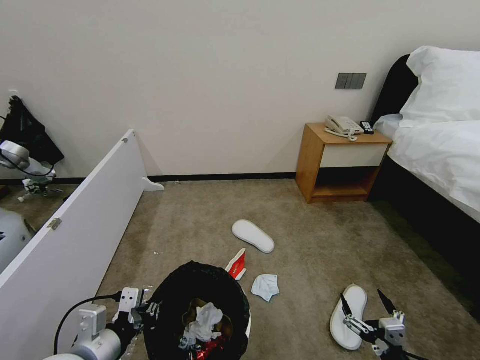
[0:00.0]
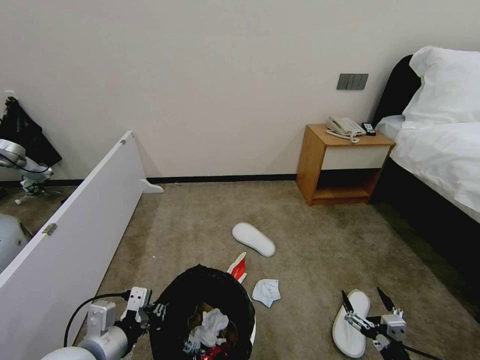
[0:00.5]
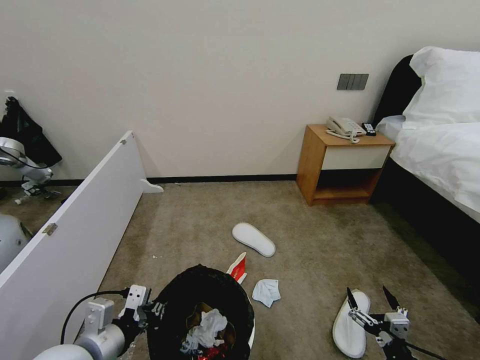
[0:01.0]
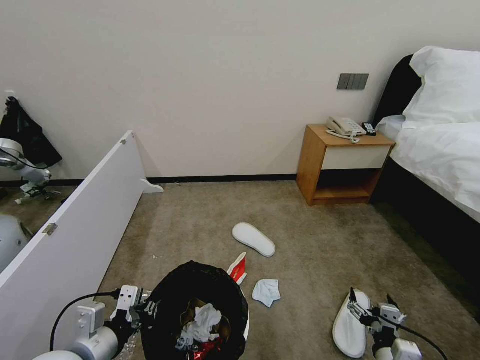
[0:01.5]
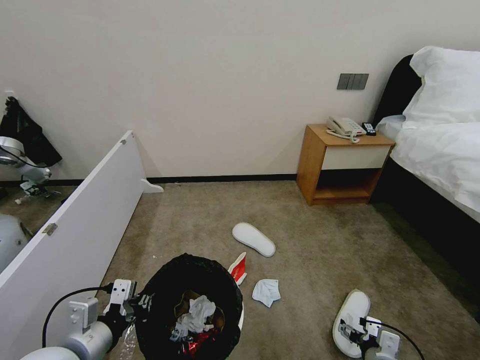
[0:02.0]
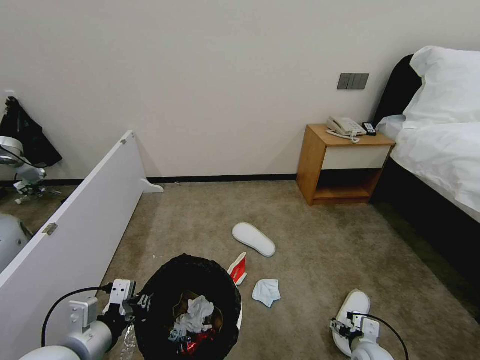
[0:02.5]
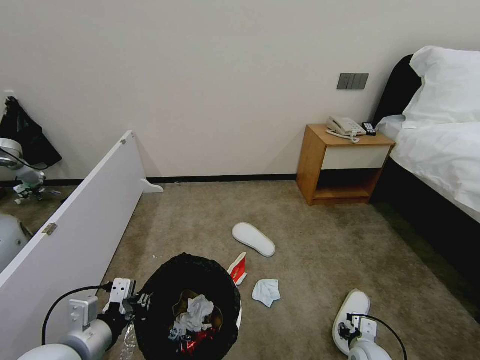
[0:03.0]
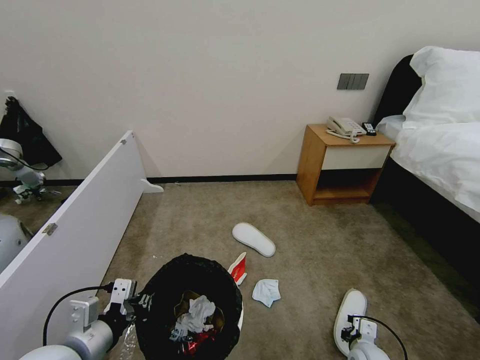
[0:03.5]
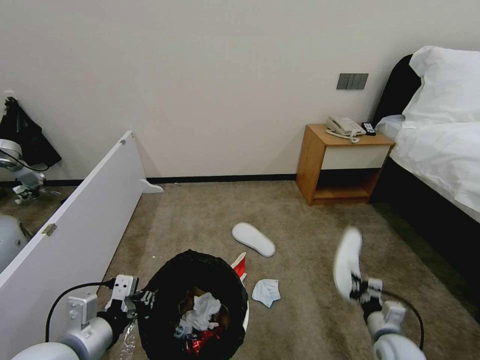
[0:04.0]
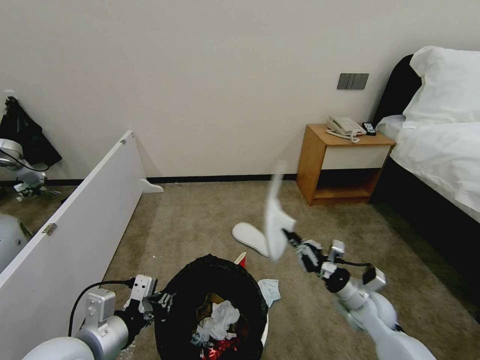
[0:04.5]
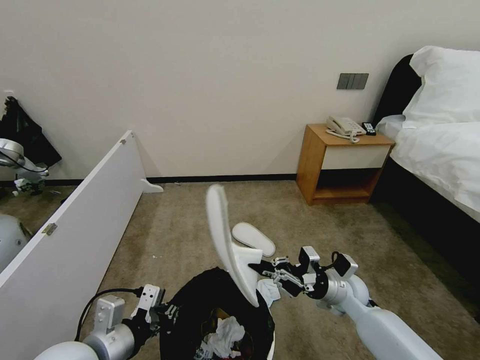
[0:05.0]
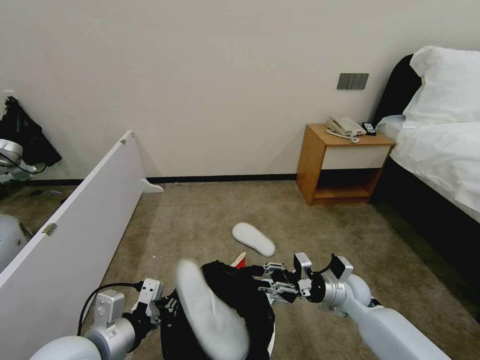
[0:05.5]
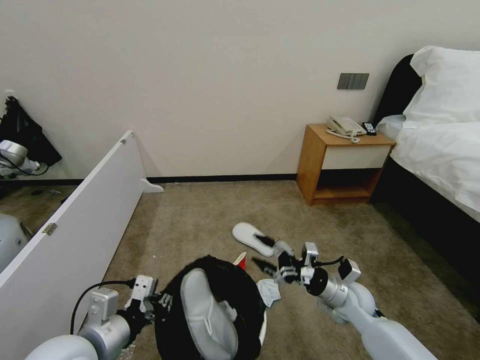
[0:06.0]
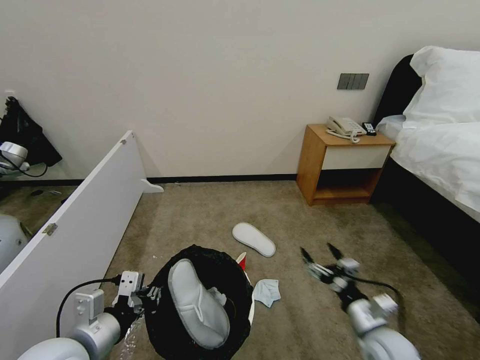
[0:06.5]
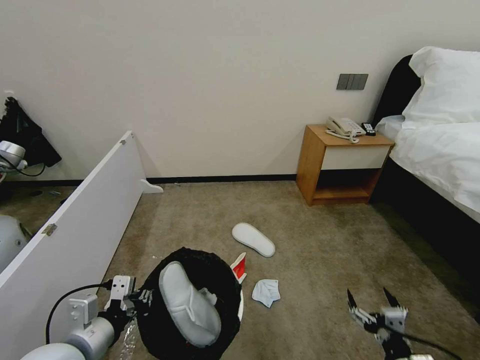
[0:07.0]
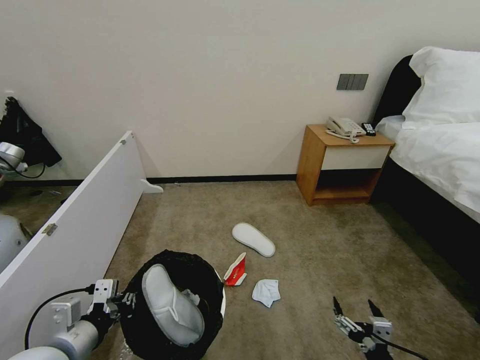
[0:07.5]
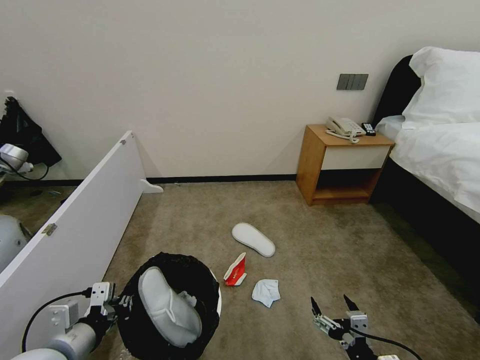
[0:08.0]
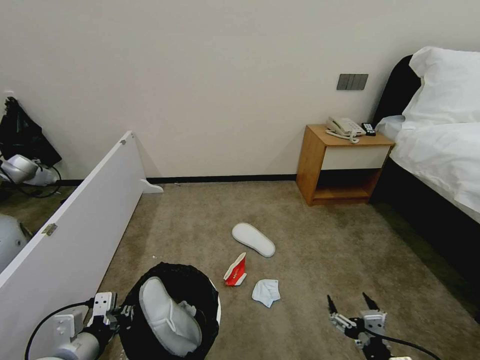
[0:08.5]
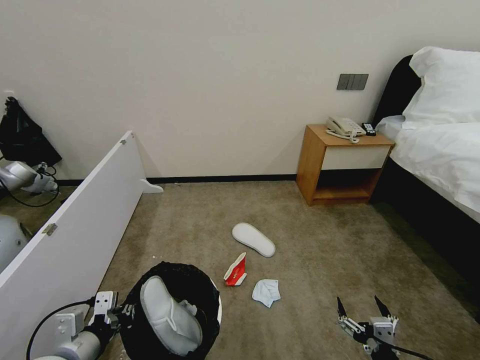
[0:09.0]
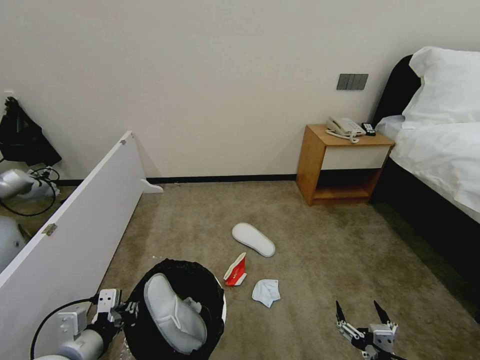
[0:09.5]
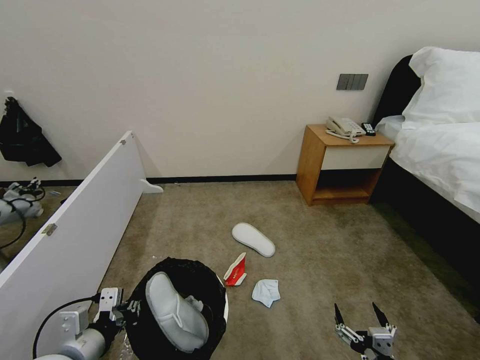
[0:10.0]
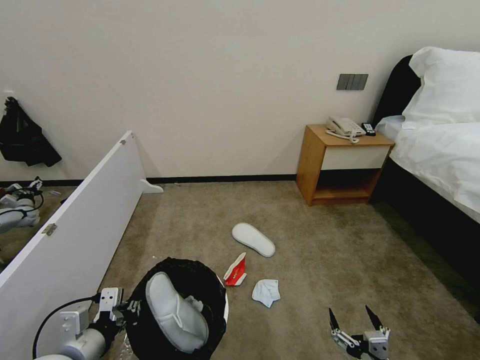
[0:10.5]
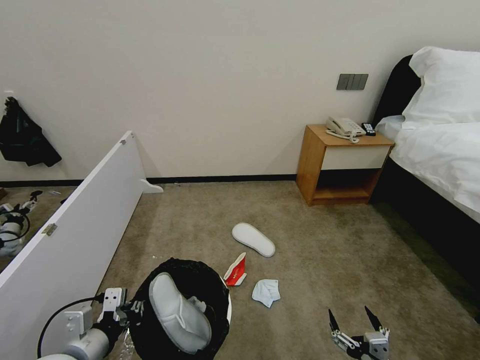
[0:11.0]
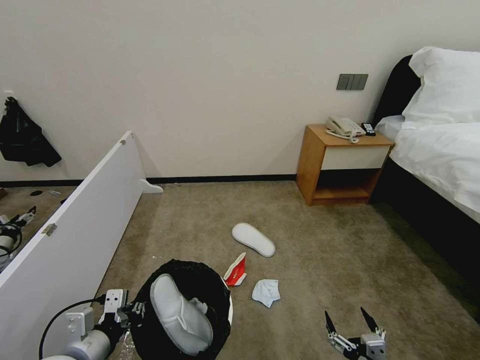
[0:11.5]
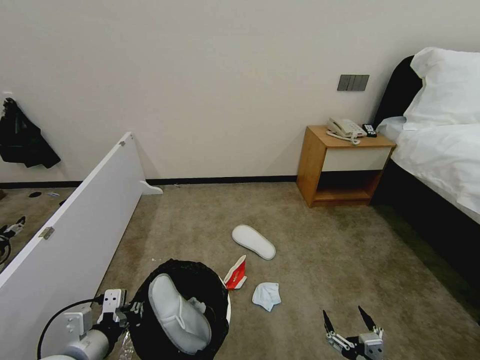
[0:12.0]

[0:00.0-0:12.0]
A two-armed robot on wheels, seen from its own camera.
Task of the whole recording: Pick up the trash bin, then pick up the garbage from the floor and place it into the trash bin.
0:00.0 to 0:02.0: The right gripper moves forward and downward, some 10 cm.
0:02.0 to 0:04.0: The right gripper heads forward, covering roughly 5 cm, and closes its fingers.
0:04.0 to 0:06.0: The right gripper moves to the left, forward and upward, some 15 cm, and opens.
0:06.0 to 0:08.0: The left gripper moves to the left, roughly 5 cm. The right gripper moves backward, some 25 cm.
0:08.0 to 0:12.0: The grippers move only a little.

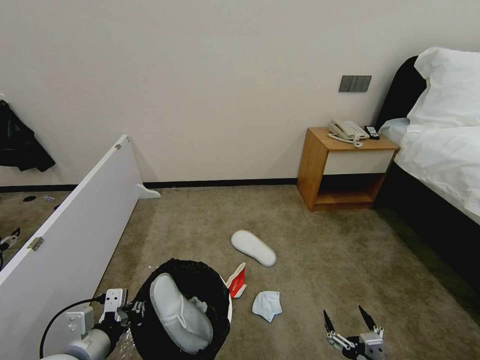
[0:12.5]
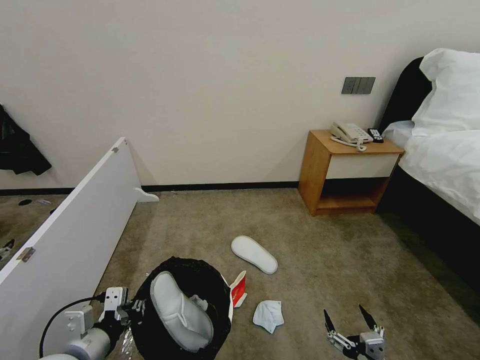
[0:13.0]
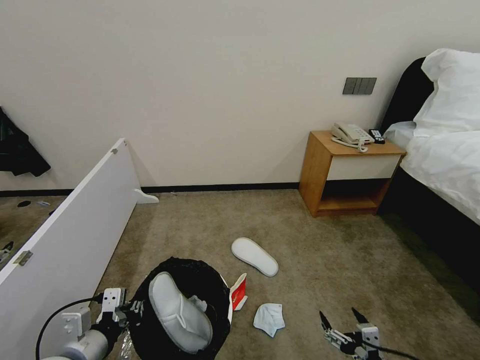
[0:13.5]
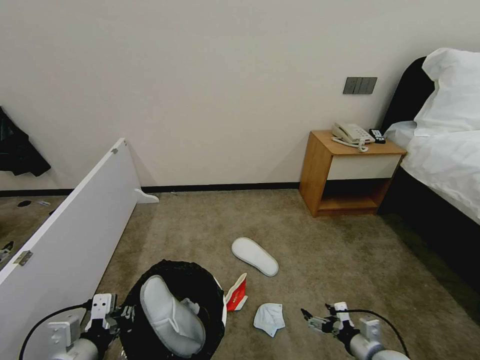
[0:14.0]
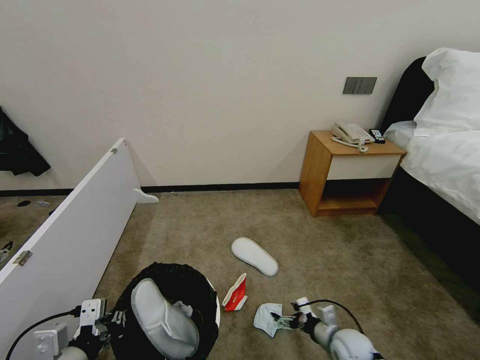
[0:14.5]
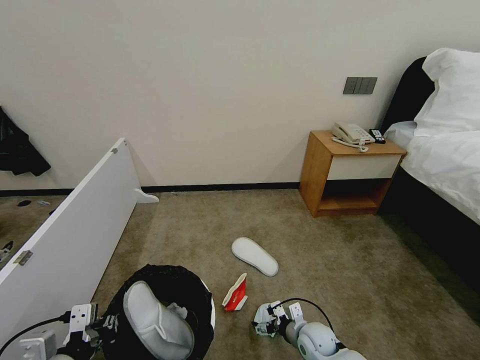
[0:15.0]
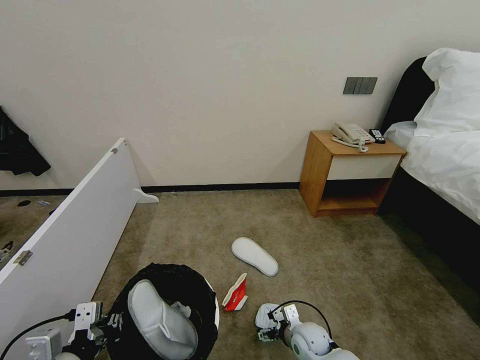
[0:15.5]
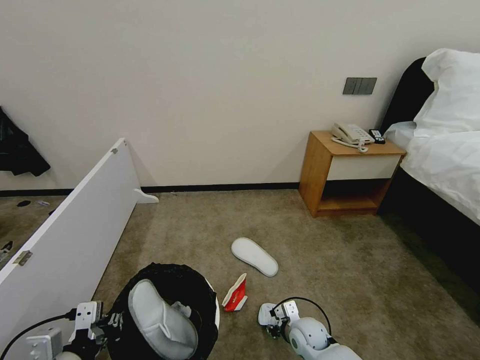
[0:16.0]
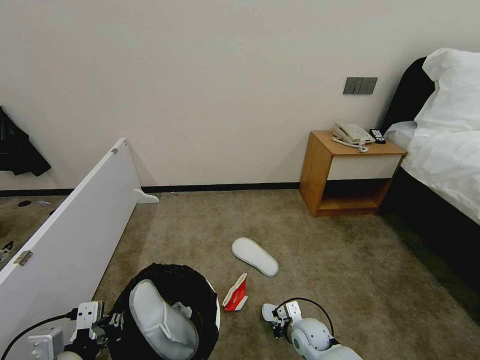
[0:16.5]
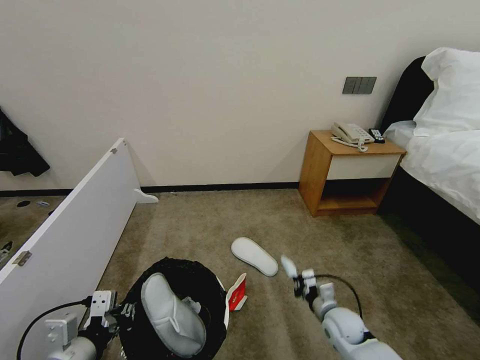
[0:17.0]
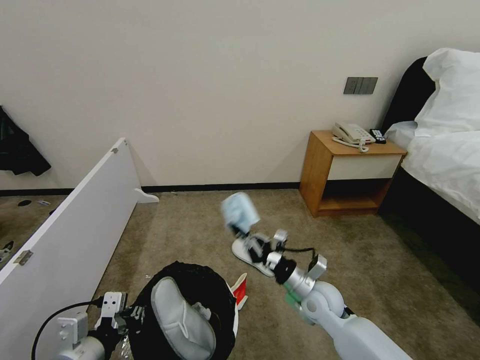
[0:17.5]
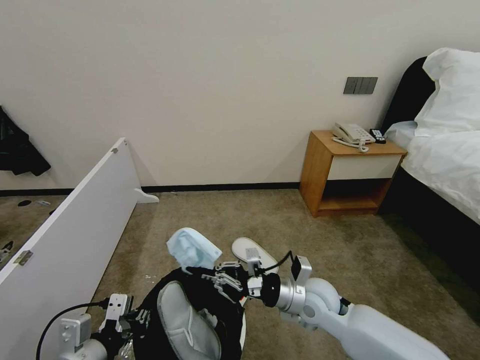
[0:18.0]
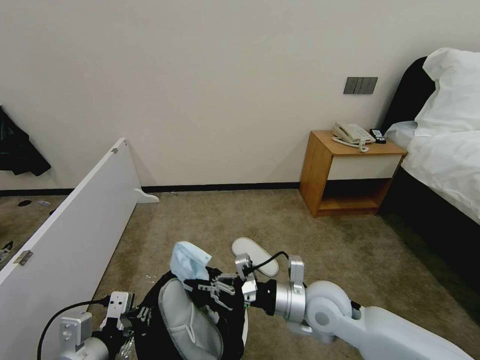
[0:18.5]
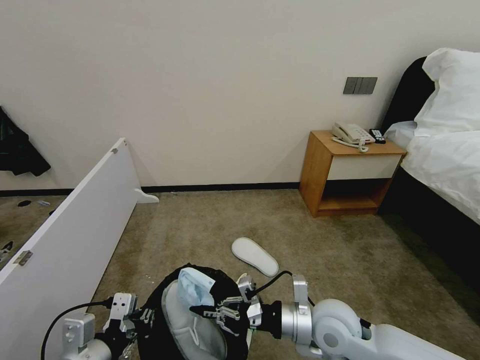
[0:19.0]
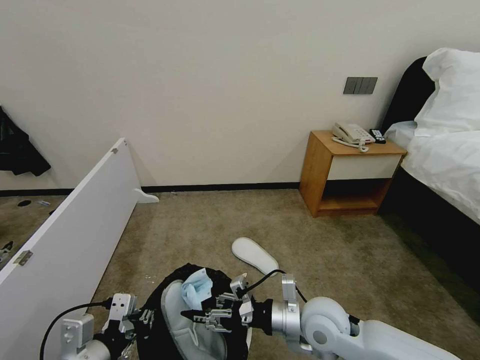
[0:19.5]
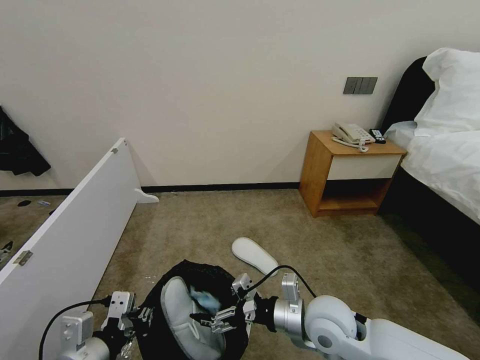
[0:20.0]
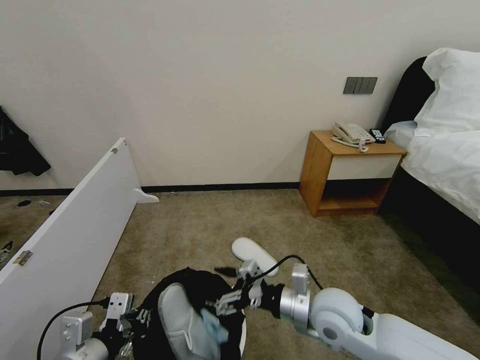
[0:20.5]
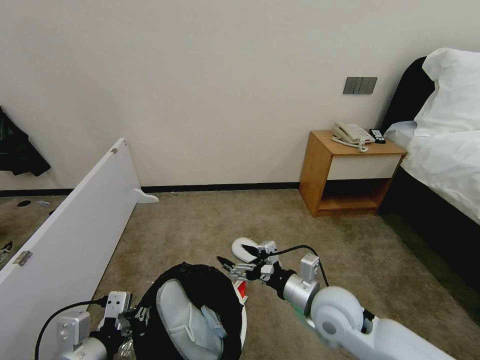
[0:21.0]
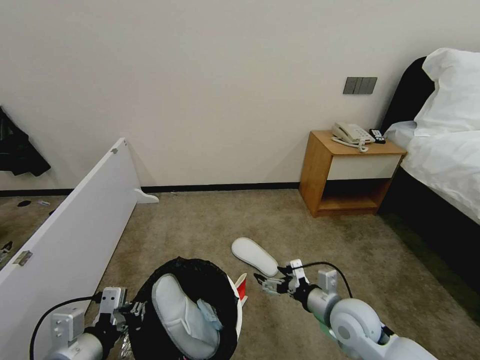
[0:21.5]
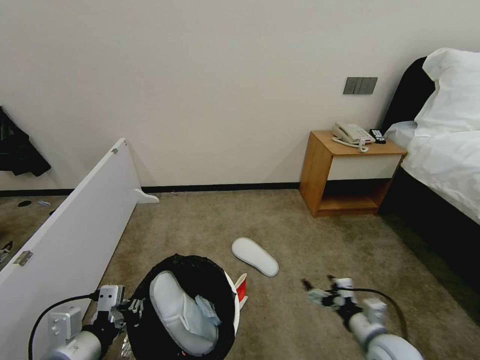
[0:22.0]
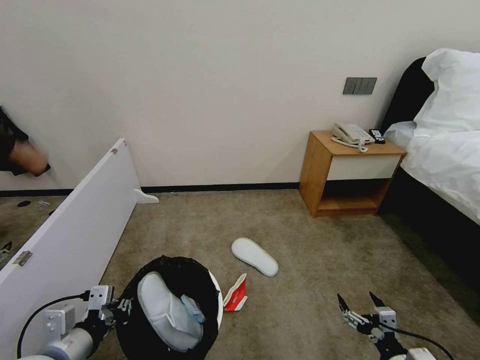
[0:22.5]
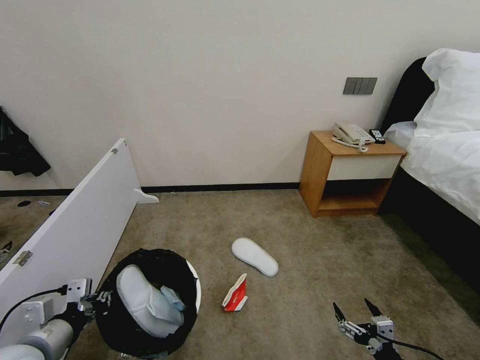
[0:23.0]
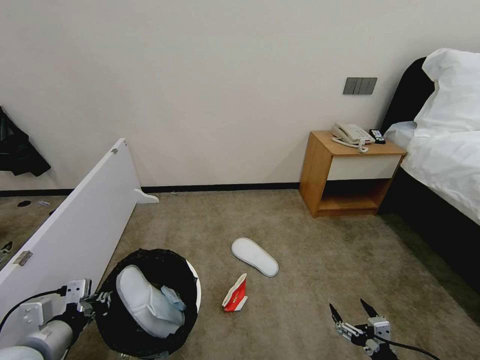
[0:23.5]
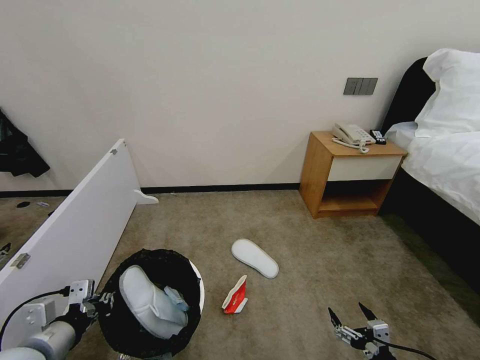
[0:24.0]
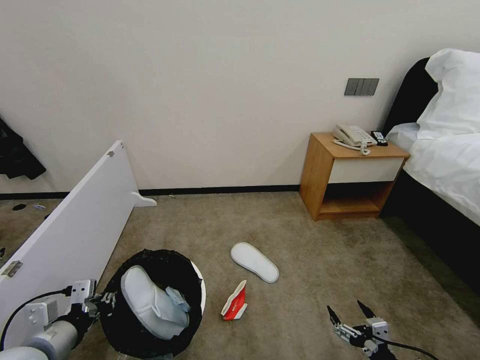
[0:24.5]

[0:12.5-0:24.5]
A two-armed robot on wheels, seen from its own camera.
Task of the whole recording: Pick up the trash bin, then pick up the garbage from the floor and place it into the trash bin.
0:12.5 to 0:14.5: The right gripper travels forward by approximately 20 cm.
0:14.5 to 0:16.5: The right gripper goes roughly 10 cm to the left, and closes its fingers.
0:16.5 to 0:18.5: The right gripper heads upward, covering roughly 25 cm.
0:18.5 to 0:20.5: The right gripper opens its fingers.
0:20.5 to 0:22.5: The right gripper shifts some 25 cm to the right, downward and backward.
0:22.5 to 0:24.5: There are only small adjustments of the grippers.

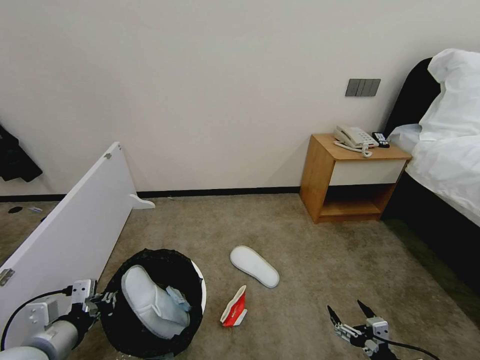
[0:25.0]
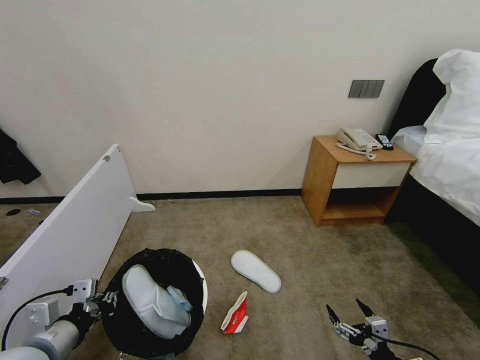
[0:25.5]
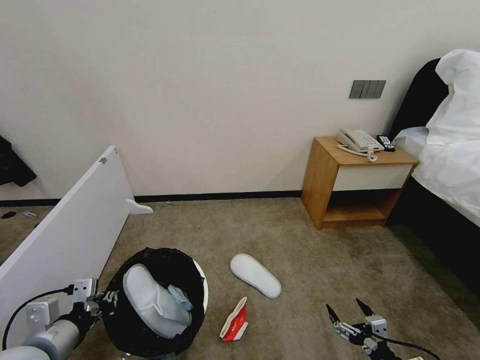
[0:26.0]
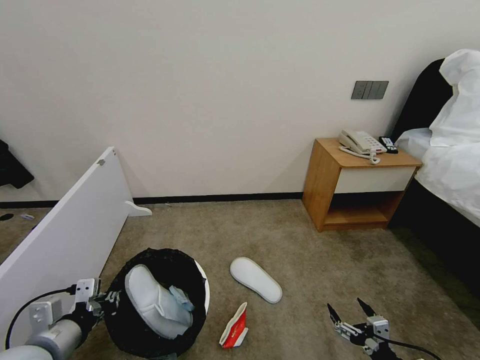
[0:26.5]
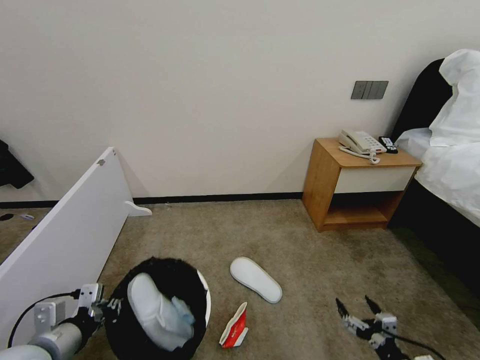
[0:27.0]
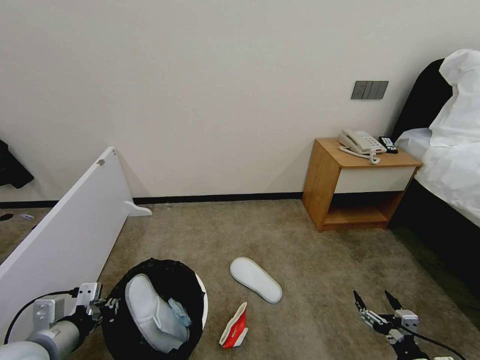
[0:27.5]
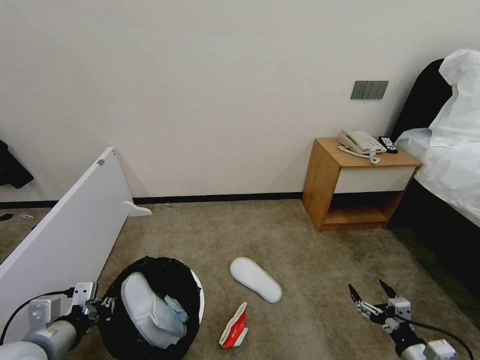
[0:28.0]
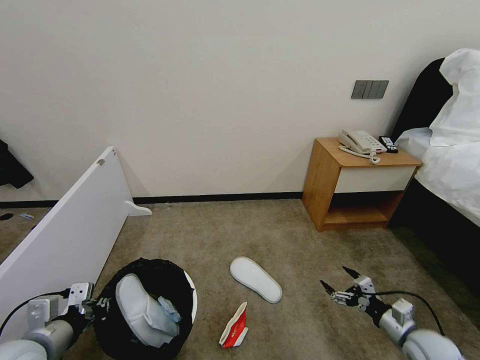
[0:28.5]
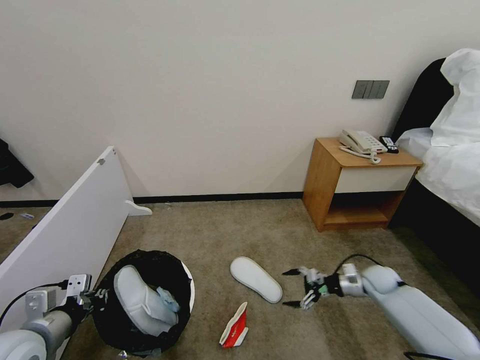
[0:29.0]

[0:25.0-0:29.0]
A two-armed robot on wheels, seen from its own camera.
Task of the whole recording: Pick up the trash bin, then pick up the garbage from the floor and place it into the trash bin.
0:25.0 to 0:27.0: The grippers move only a little.
0:27.0 to 0:29.0: The right gripper moves forward, roughly 30 cm.
